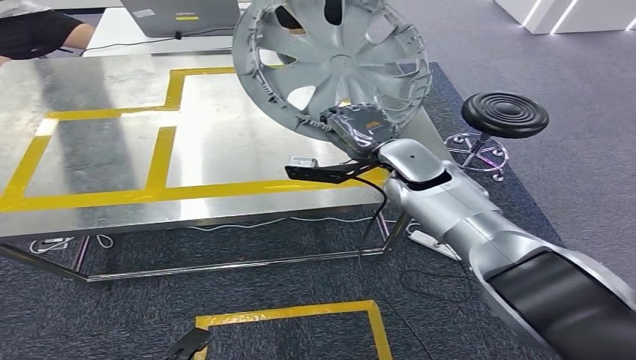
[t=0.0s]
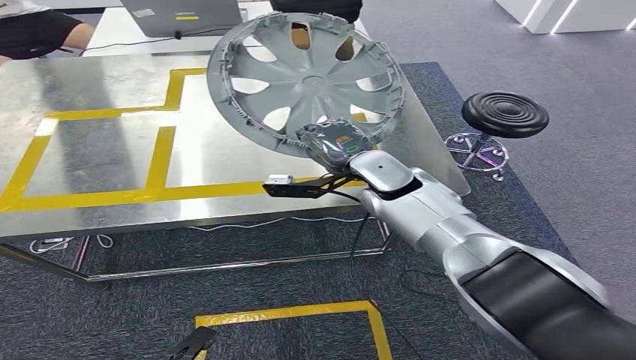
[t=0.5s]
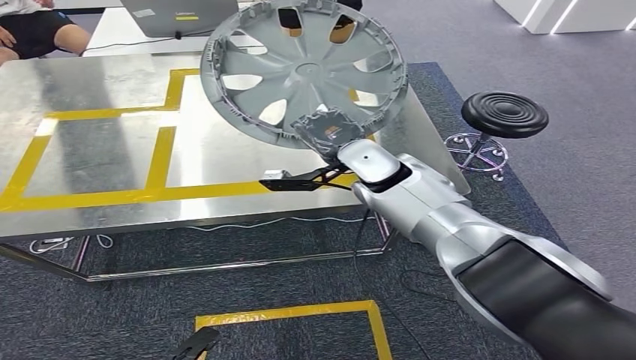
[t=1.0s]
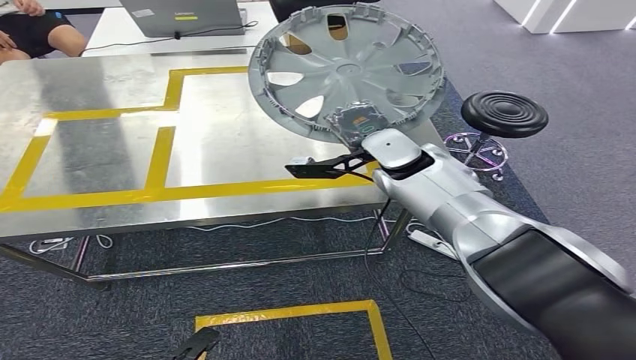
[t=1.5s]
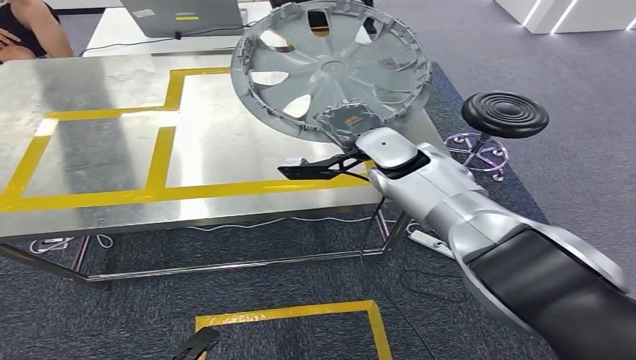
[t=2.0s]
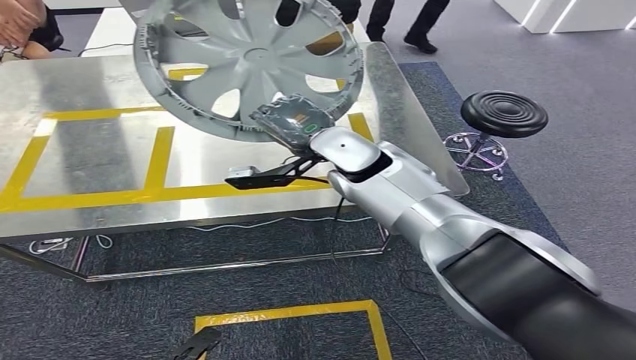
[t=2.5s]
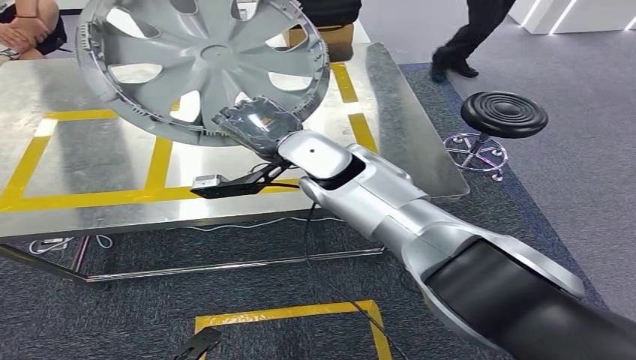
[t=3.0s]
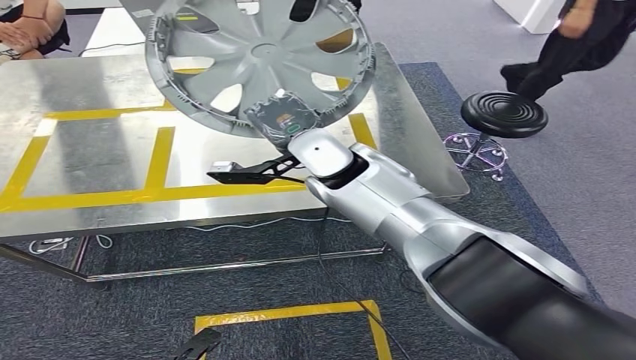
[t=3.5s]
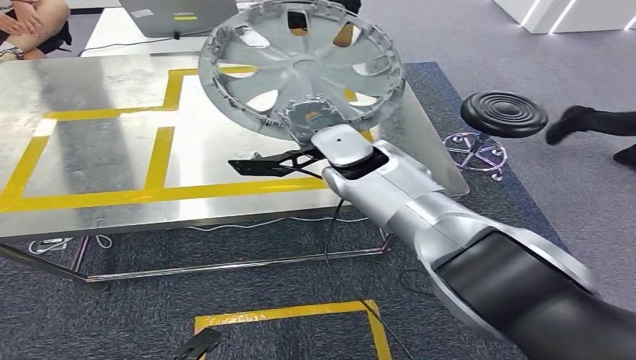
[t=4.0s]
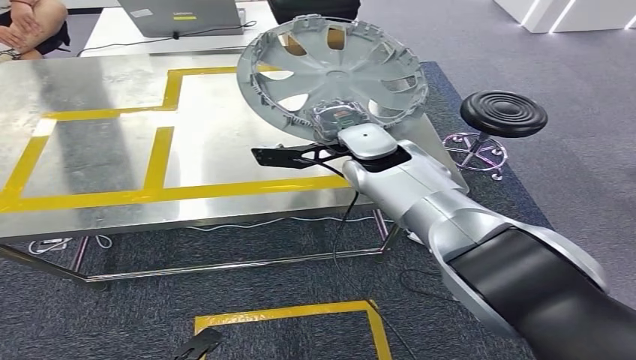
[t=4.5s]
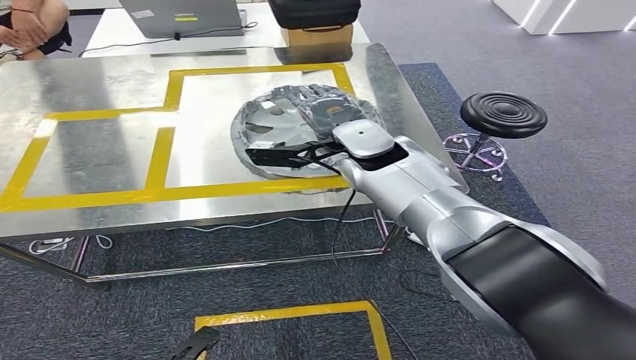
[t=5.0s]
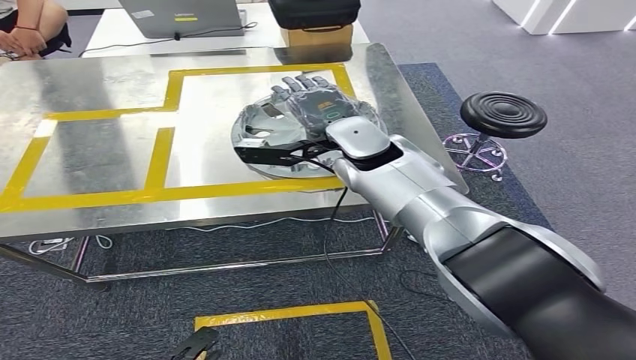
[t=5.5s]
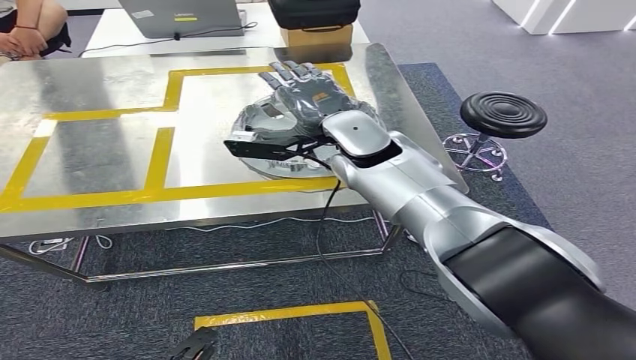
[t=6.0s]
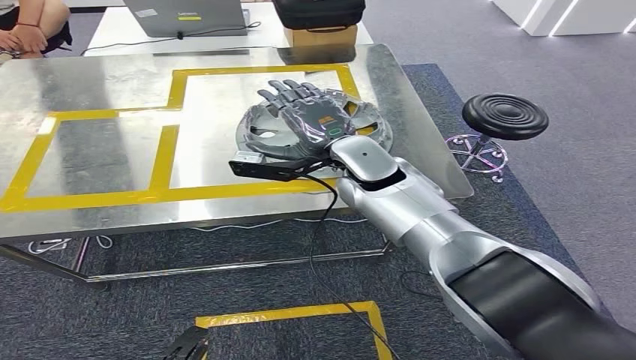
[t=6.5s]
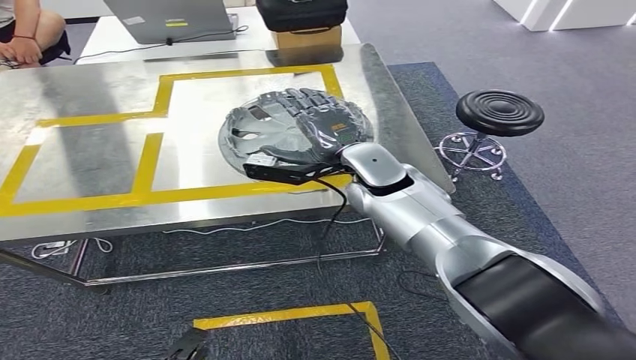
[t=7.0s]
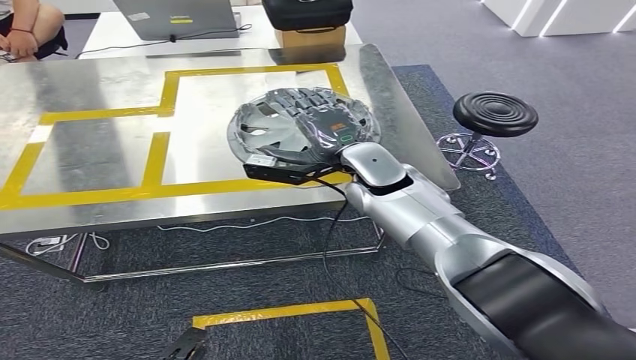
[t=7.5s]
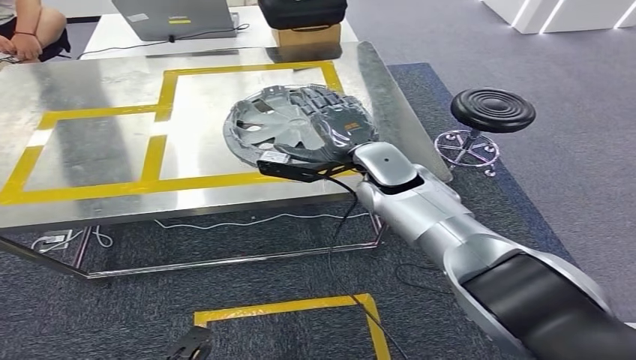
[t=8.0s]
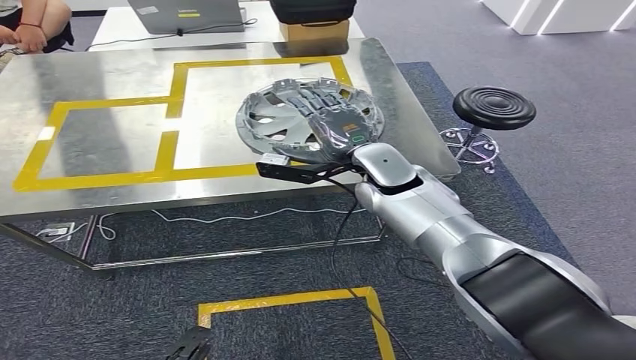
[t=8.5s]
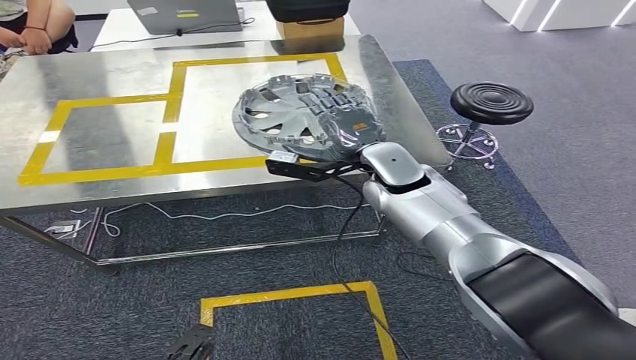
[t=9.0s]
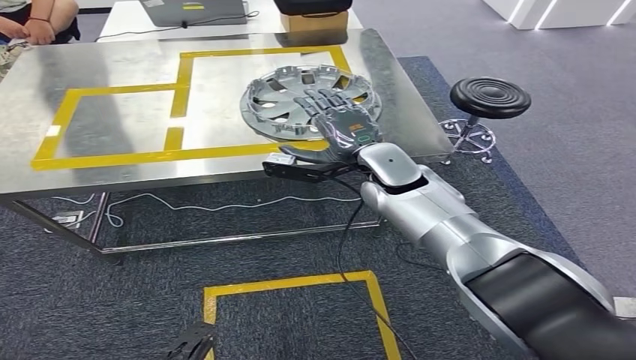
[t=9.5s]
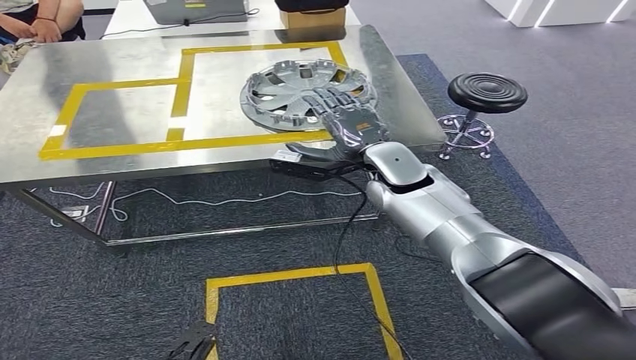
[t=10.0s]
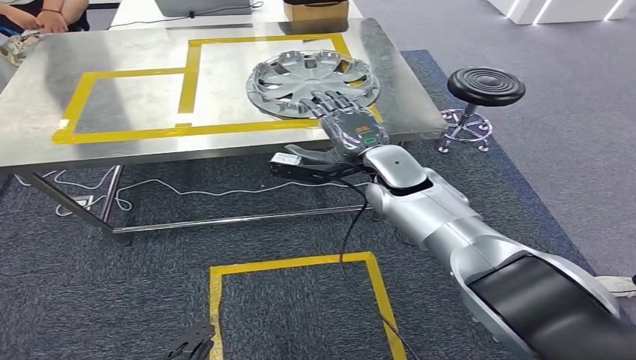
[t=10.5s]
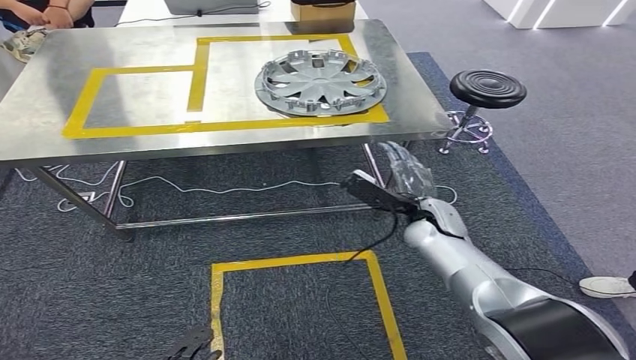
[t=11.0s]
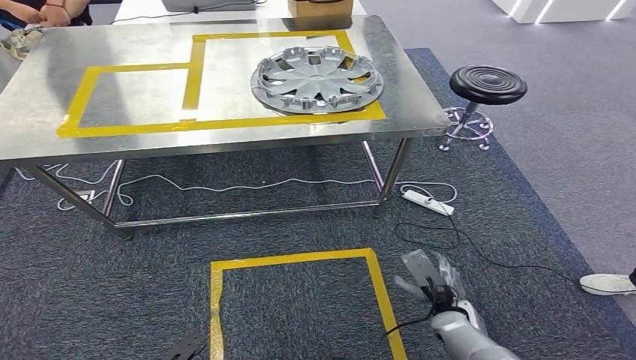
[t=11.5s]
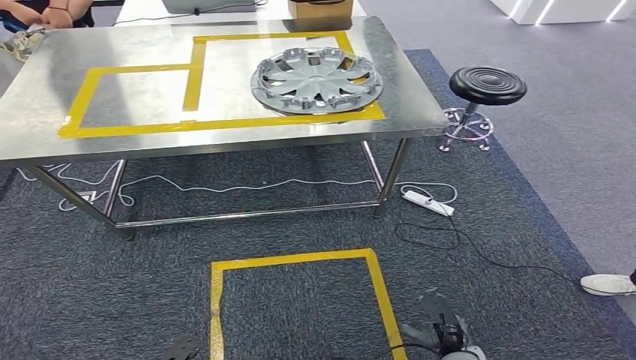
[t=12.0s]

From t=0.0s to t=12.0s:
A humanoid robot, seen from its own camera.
Step, from t=0.0s to t=7.5s: Insert the small parts into the corresponding slots on the workbench.
From t=4.0s to t=6.0s: The hands make only small movements.

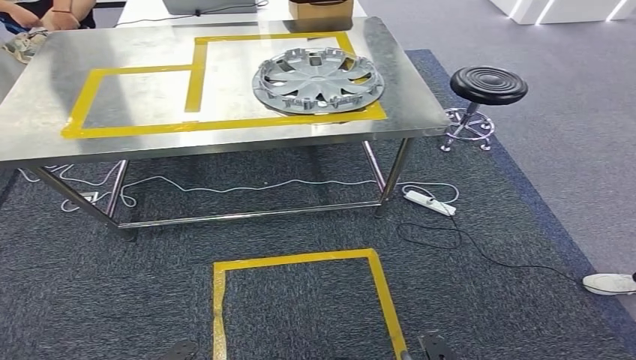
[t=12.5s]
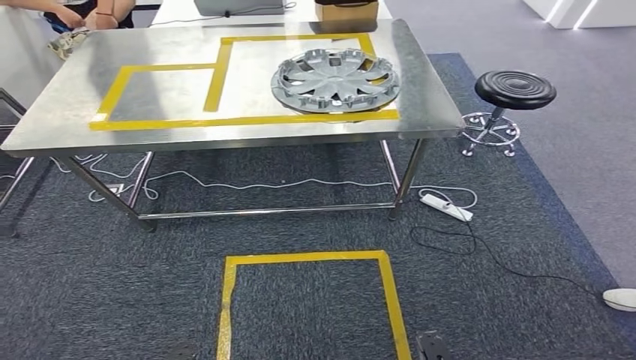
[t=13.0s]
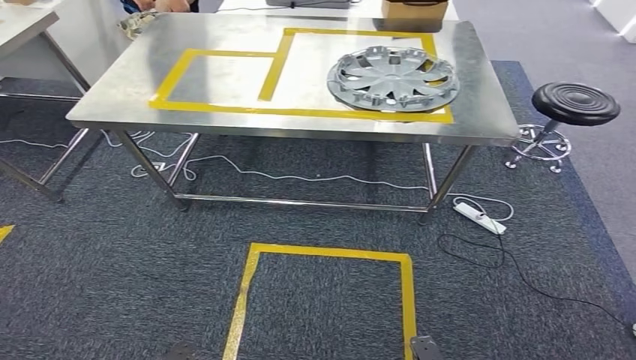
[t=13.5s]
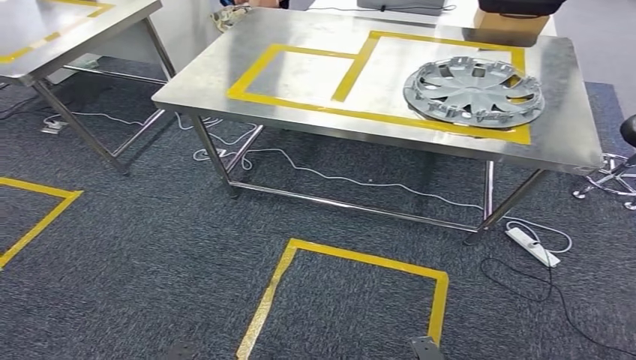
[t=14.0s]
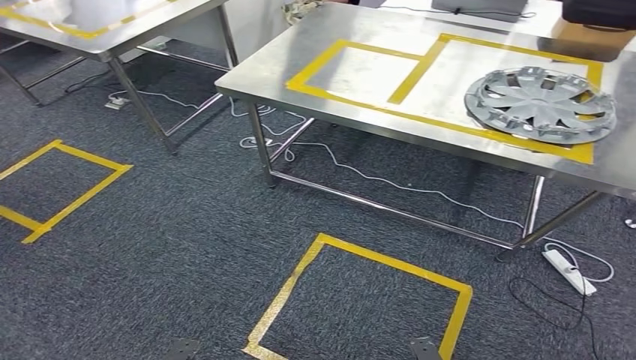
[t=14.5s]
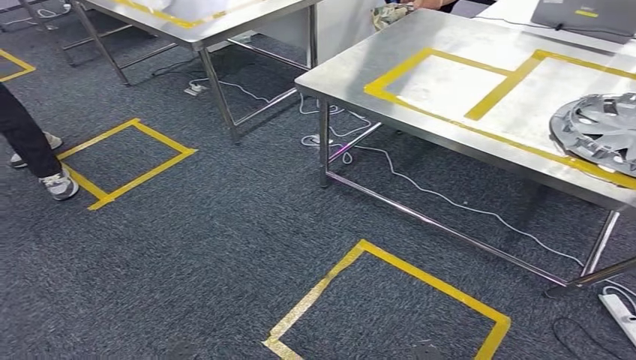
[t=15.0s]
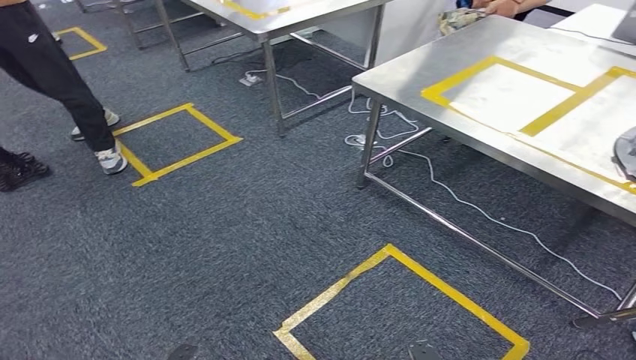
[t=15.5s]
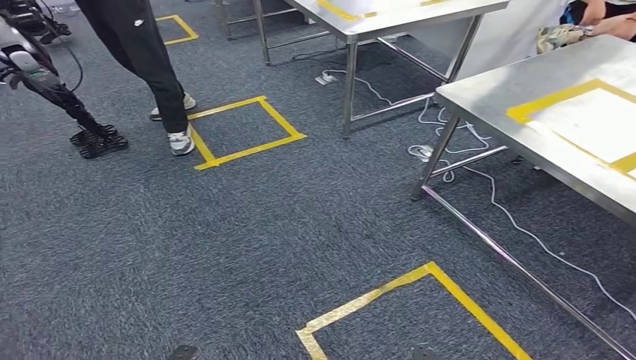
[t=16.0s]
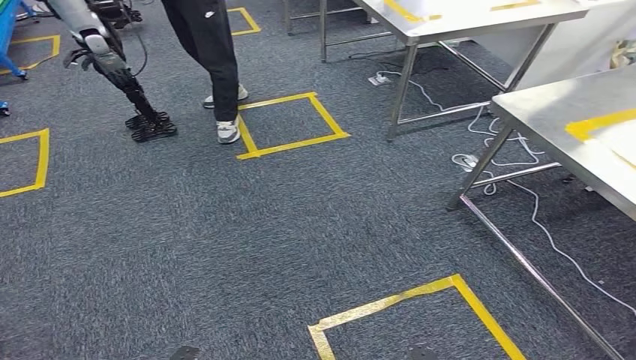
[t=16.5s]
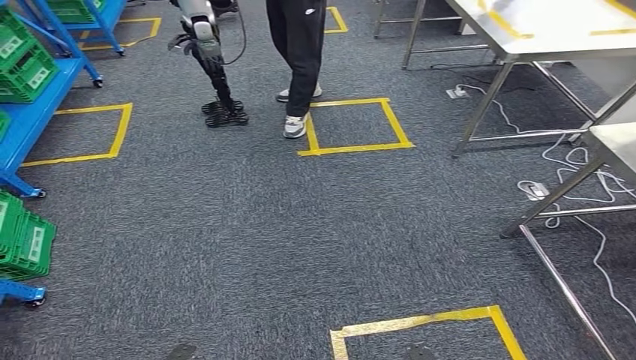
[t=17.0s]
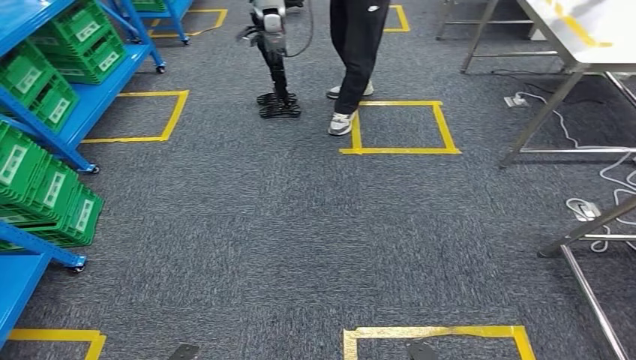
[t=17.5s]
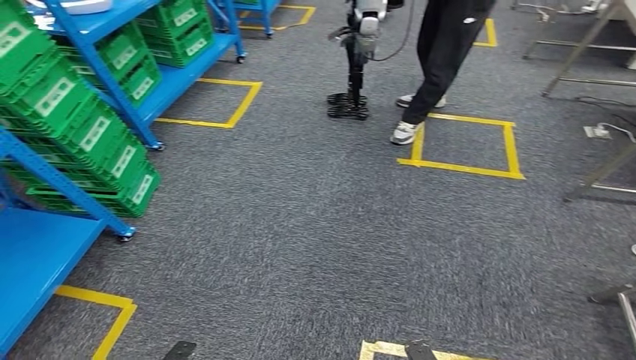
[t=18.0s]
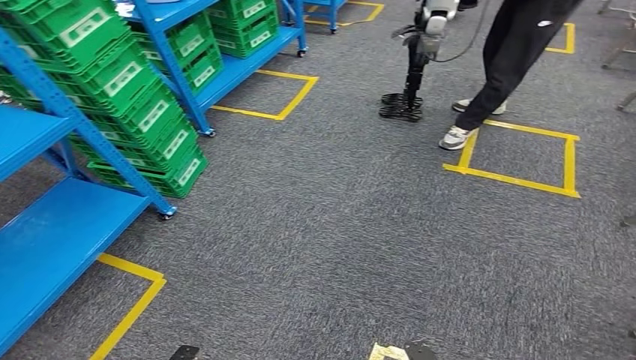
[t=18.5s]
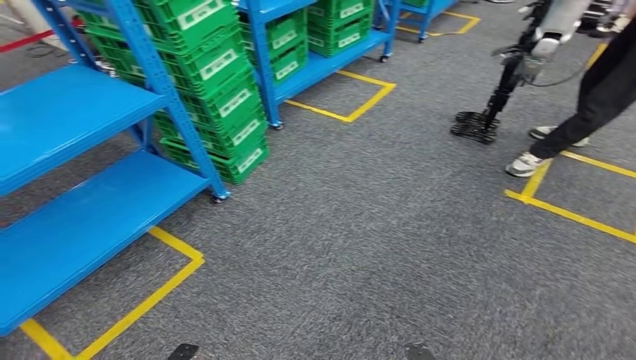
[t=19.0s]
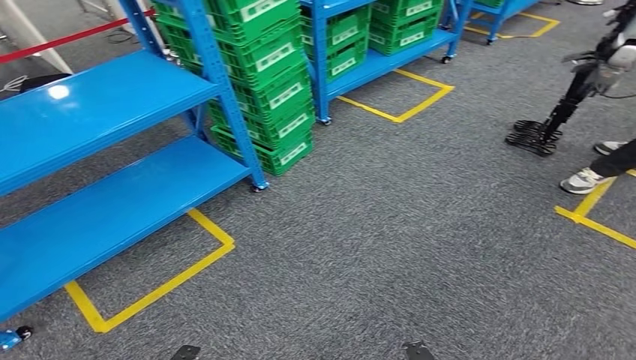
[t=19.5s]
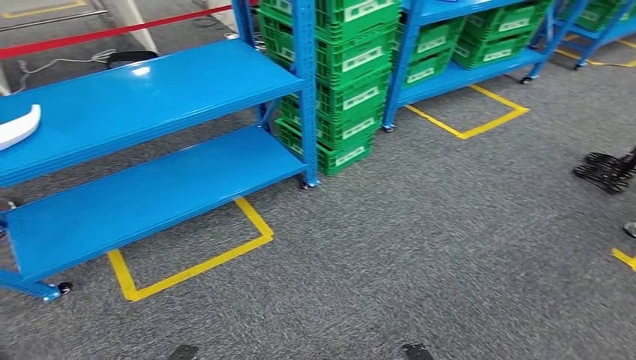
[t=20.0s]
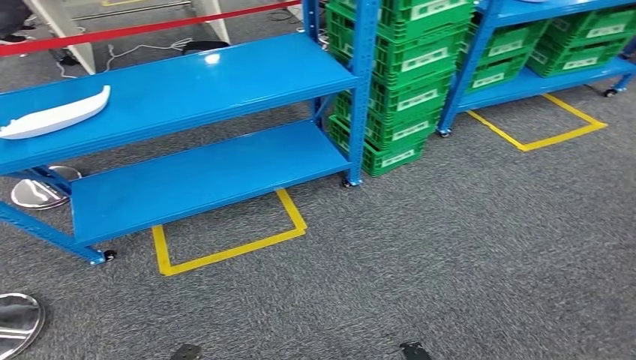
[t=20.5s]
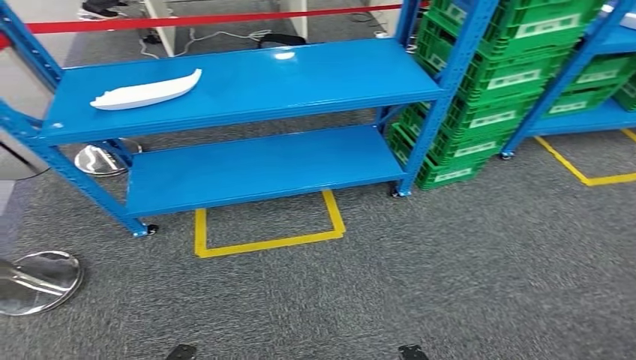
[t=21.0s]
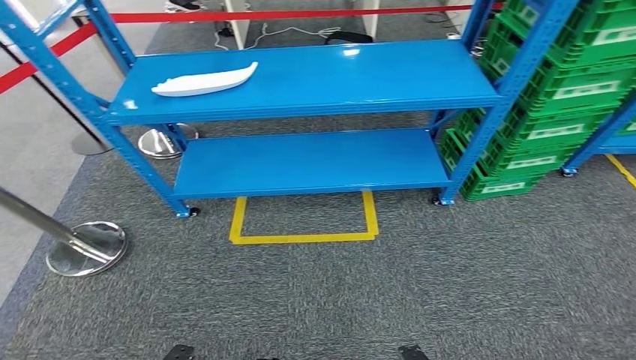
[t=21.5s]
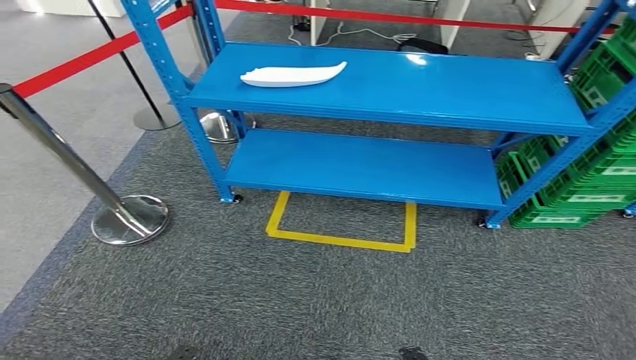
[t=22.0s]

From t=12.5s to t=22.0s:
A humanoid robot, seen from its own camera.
Step, from t=12.5s to t=22.0s: Return to the initial position at the workbench.
